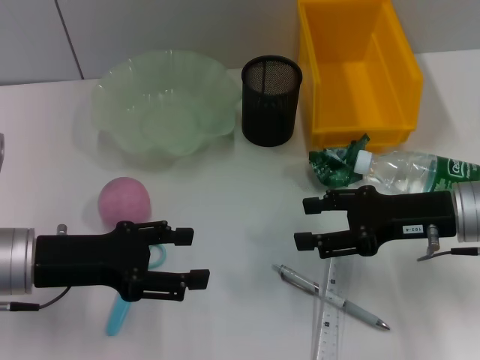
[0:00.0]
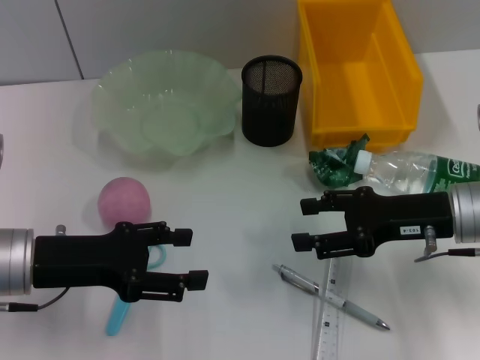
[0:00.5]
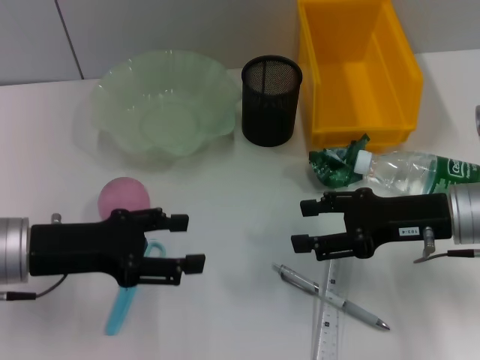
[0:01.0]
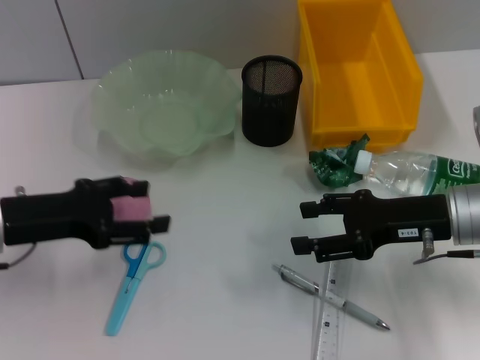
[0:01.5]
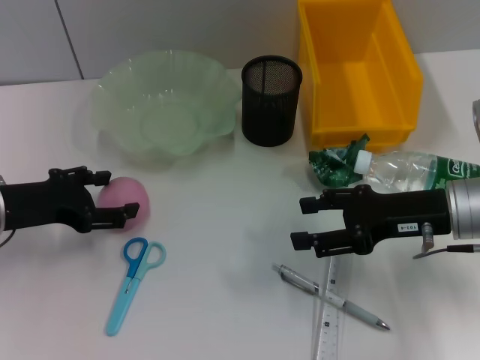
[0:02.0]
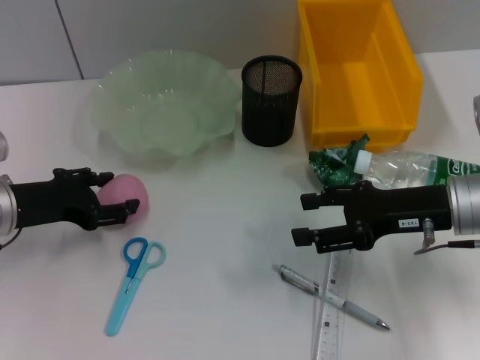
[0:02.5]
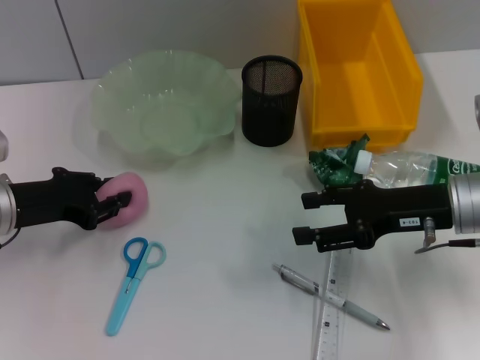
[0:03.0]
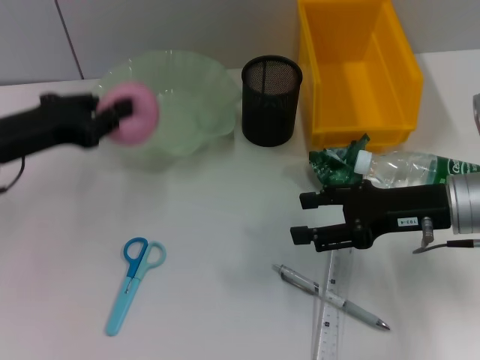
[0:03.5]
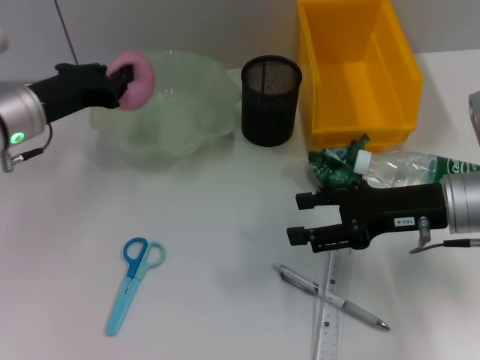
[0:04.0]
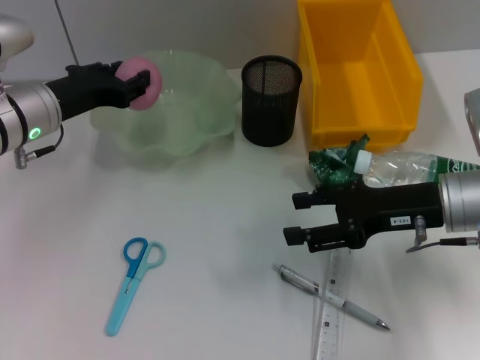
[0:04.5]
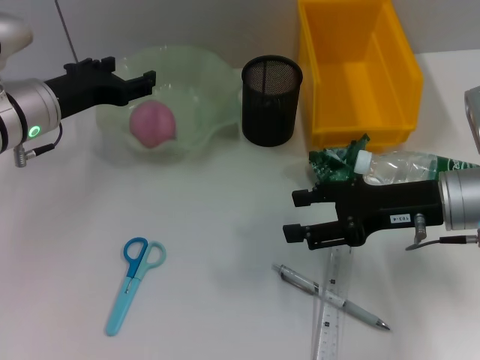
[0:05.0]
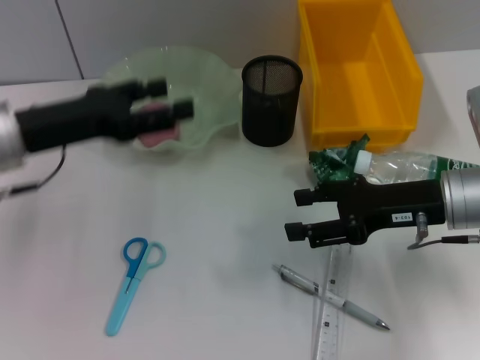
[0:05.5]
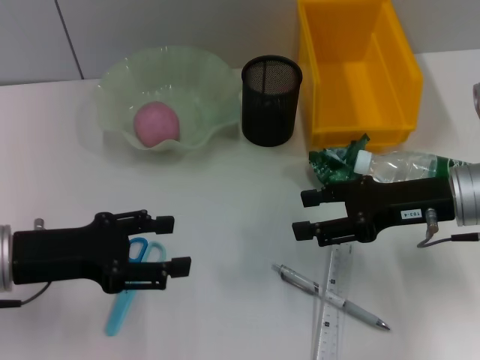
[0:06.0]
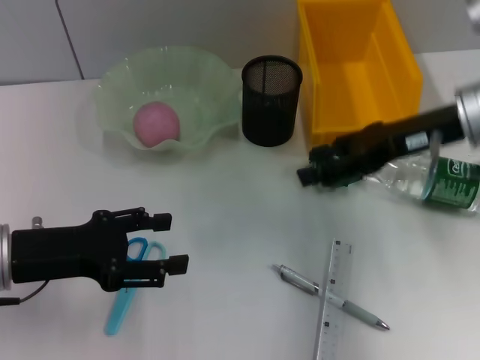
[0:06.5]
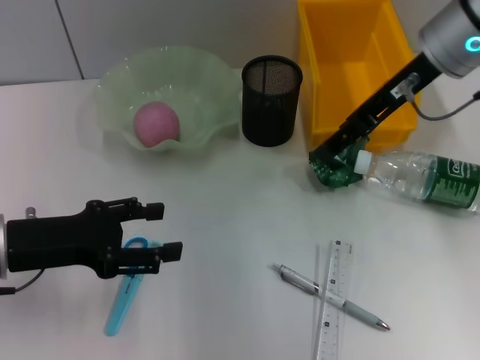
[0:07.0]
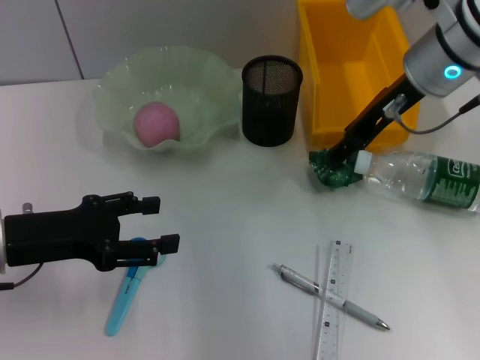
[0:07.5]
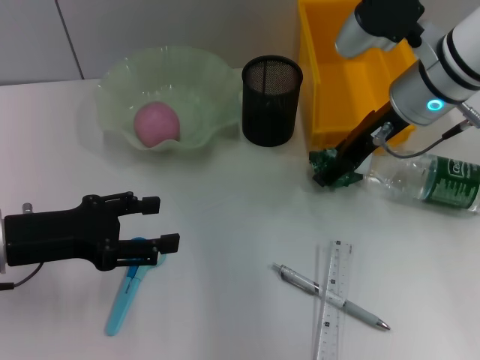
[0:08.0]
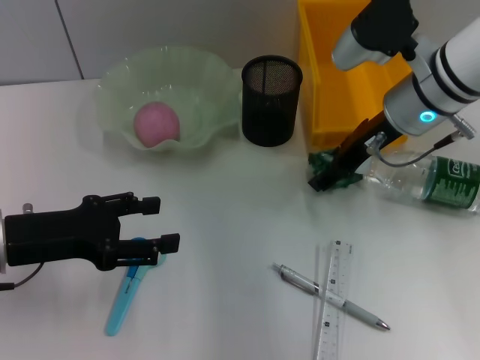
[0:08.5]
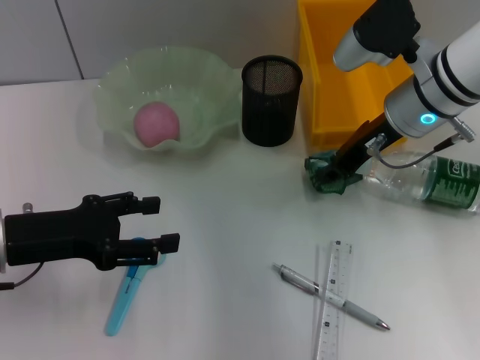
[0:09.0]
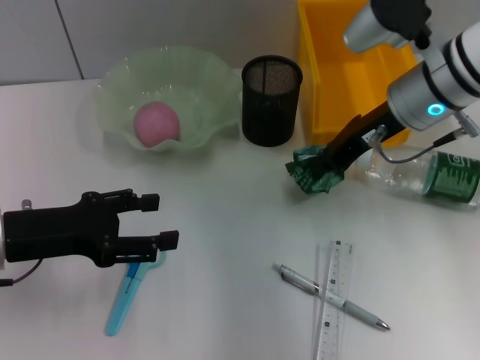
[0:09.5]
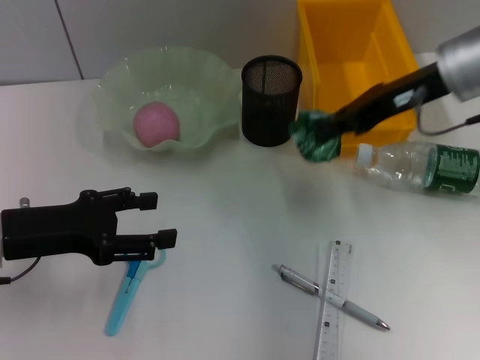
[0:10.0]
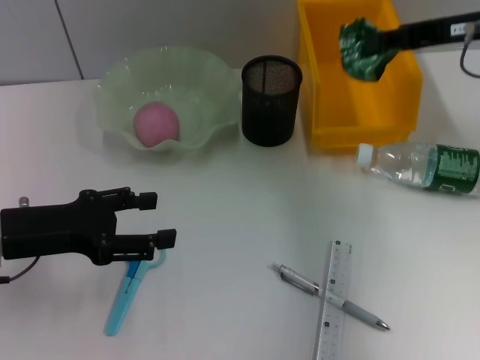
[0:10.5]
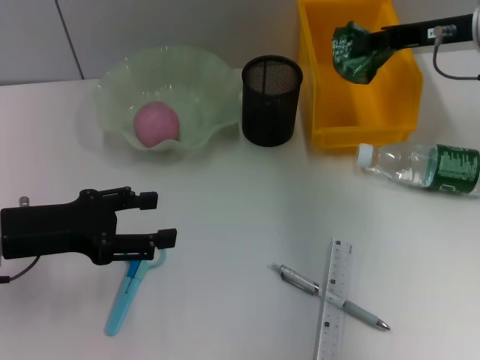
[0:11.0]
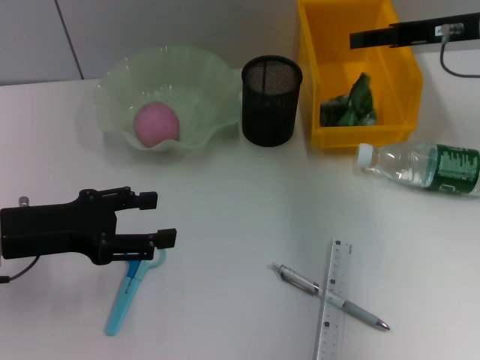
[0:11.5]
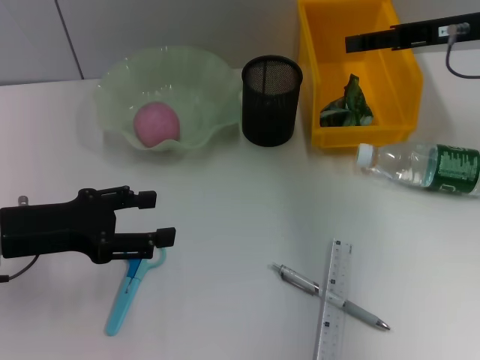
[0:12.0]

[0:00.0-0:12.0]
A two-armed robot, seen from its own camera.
Step, 0:00.0 to 0:02.5: Grab the peach with the left hand.
Step, 0:03.0 to 0:04.5: Place the peach into the fruit bowl with the left hand.
Step, 0:05.0 to 0:09.0: Grab the plastic with the right hand.
Step, 0:09.5 to 0:11.5: Place the plastic into the trash can with the right hand.
0:00.0 to 0:02.0: The left gripper shifts by some 5 cm.
0:02.0 to 0:04.0: The left gripper goes some 5 cm forward, and closes its fingers.
0:04.0 to 0:06.0: The left gripper moves backward, about 10 cm, and opens.
0:06.0 to 0:08.0: The right gripper heads forward, upward and to the left, covering approximately 15 cm.
0:08.0 to 0:10.0: The right gripper ends up roughly 5 cm from where it was, and closes up.
0:10.0 to 0:12.0: The right gripper heads to the right, covering approximately 5 cm, and opens its fingers.

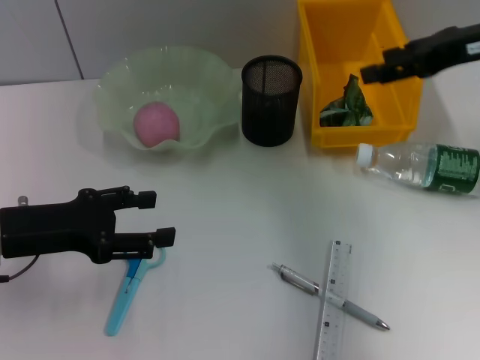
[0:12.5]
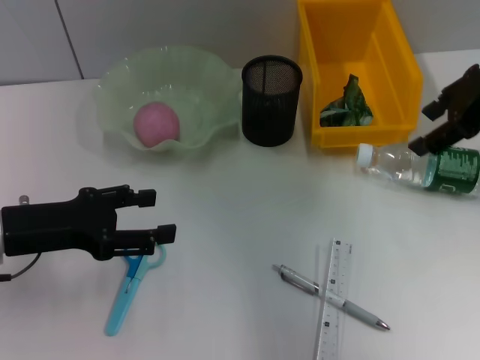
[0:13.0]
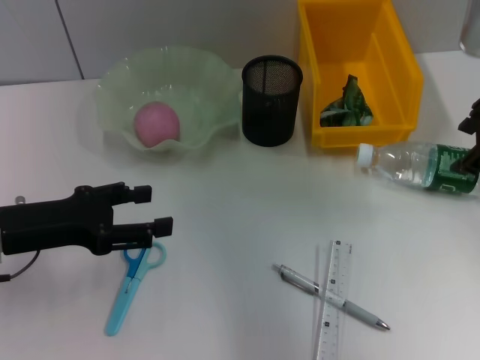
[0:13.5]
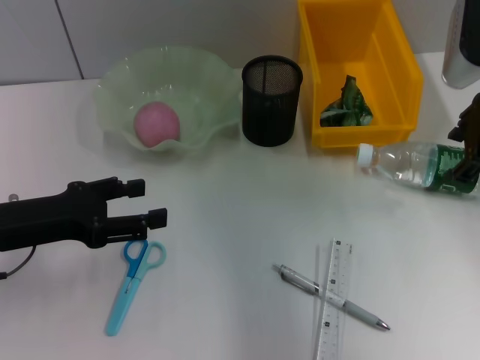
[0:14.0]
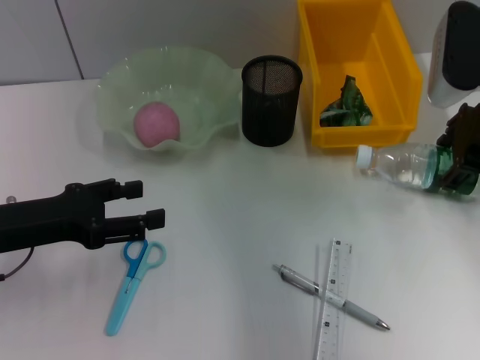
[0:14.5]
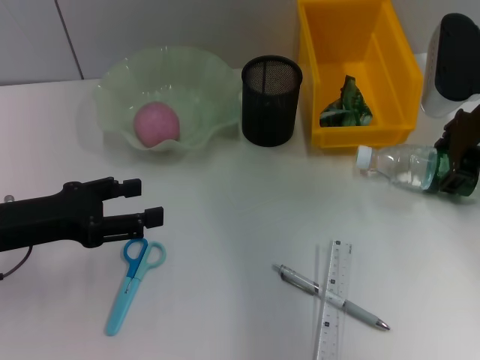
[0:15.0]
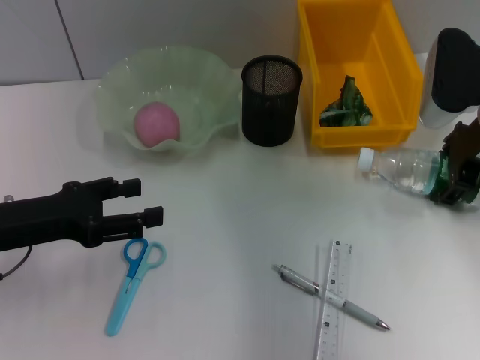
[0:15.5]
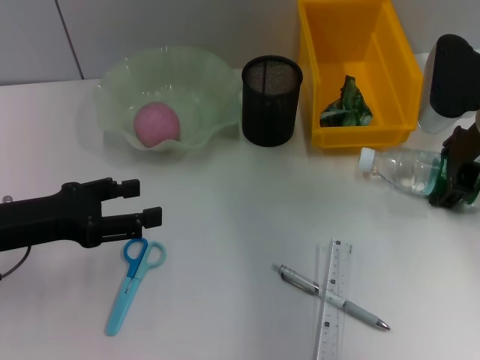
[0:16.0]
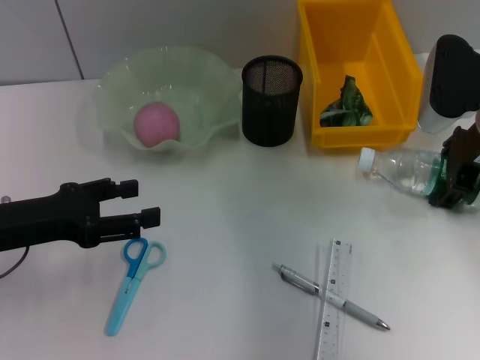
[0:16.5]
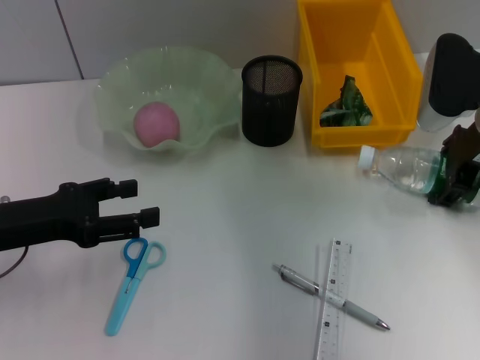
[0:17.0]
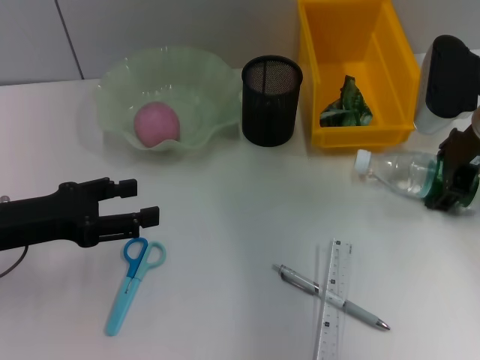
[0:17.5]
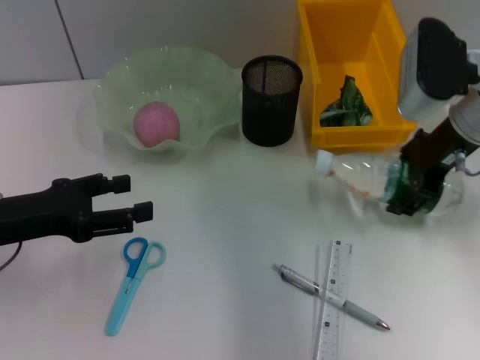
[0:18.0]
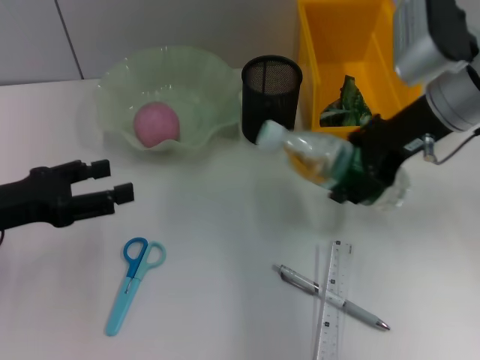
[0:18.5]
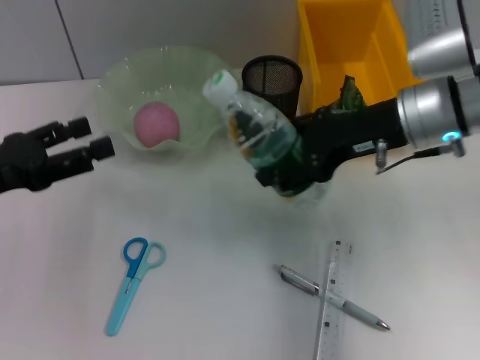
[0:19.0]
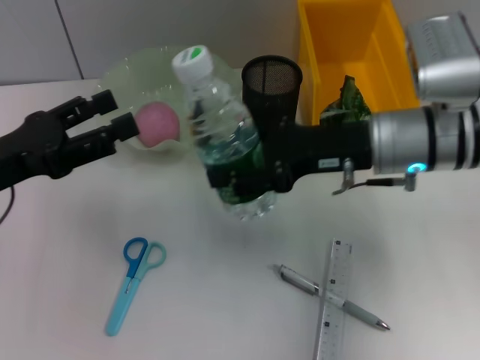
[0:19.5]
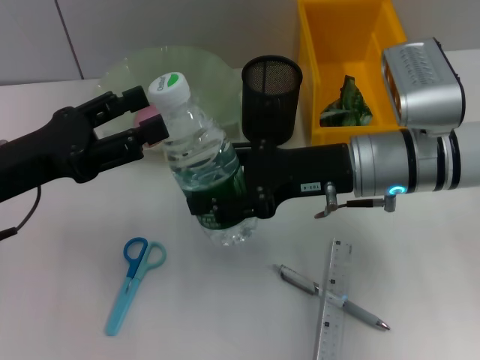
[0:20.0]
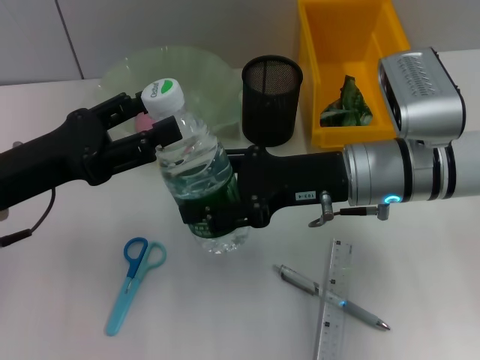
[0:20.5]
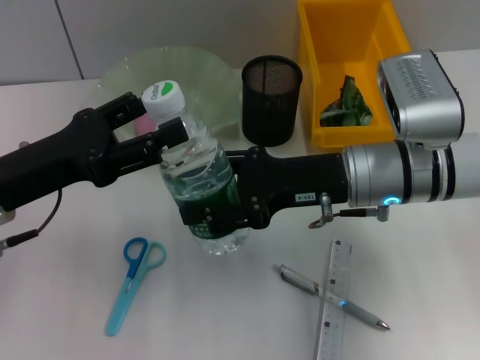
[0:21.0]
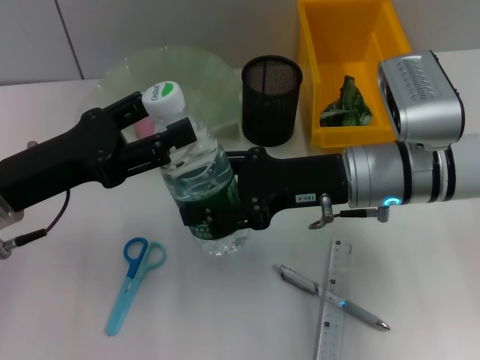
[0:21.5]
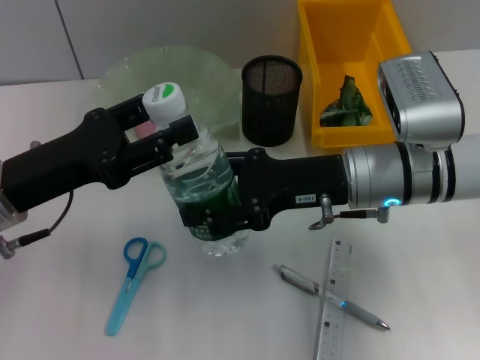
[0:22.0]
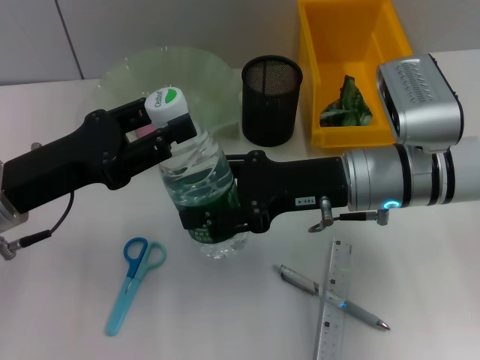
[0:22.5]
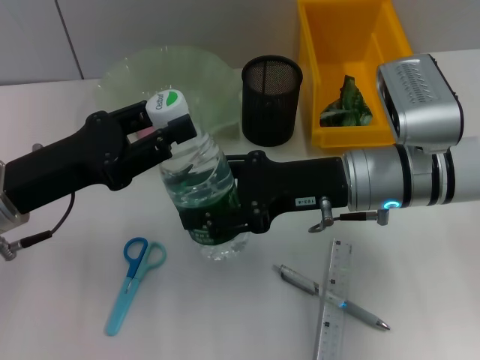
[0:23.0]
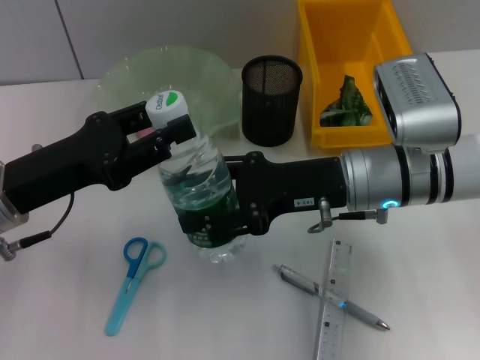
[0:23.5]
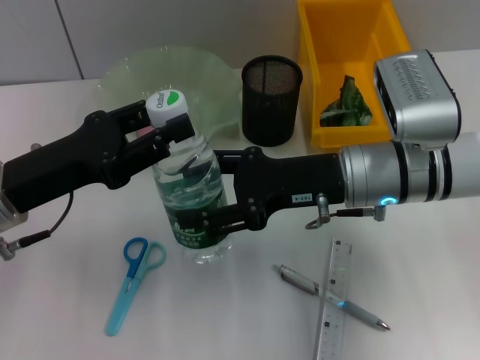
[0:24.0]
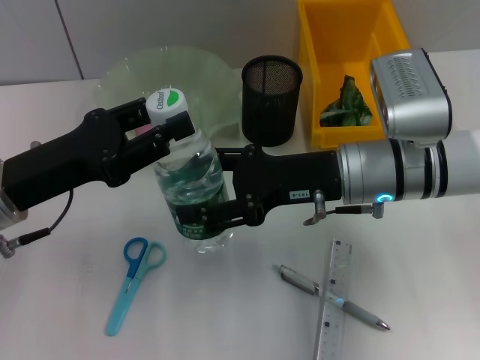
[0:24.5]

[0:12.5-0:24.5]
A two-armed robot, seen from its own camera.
Step, 0:12.5 to 0:17.5: Grab the water bottle with the right hand.
0:12.5 to 0:14.5: The right gripper travels downward by approximately 5 cm.
0:14.5 to 0:16.5: The grippers make only small movements.
0:16.5 to 0:18.5: The right gripper heads to the left, covering about 5 cm.
0:18.5 to 0:20.5: The left gripper shifts by some 5 cm. The right gripper travels downward, to the left and backward by roughly 10 cm.
0:20.5 to 0:22.5: The left gripper closes.
0:22.5 to 0:24.5: The two grippers keep their place.

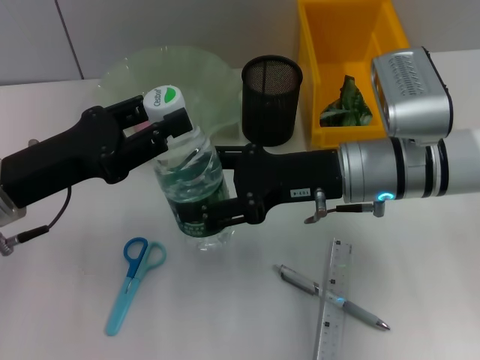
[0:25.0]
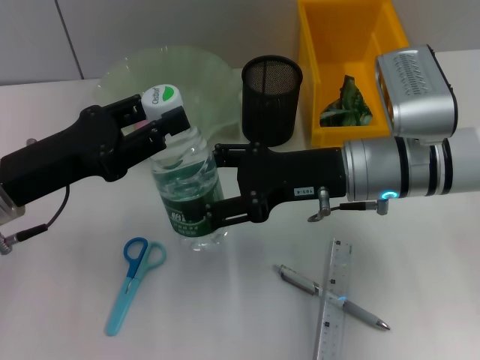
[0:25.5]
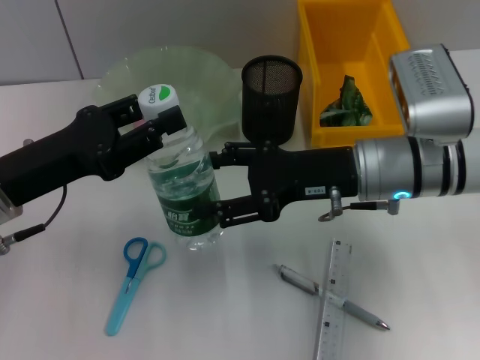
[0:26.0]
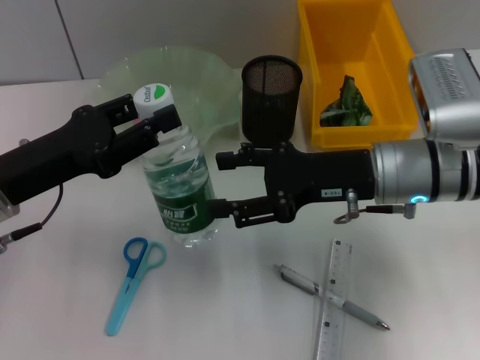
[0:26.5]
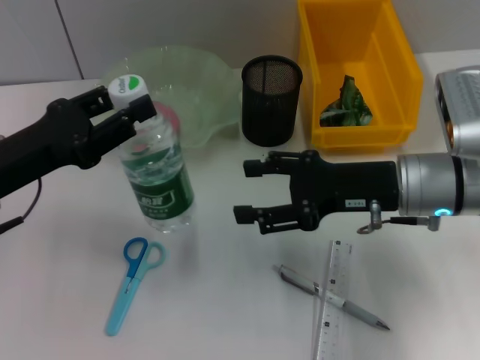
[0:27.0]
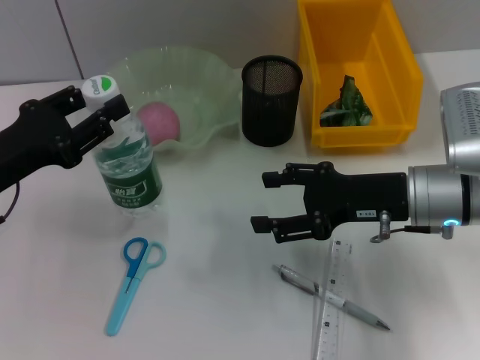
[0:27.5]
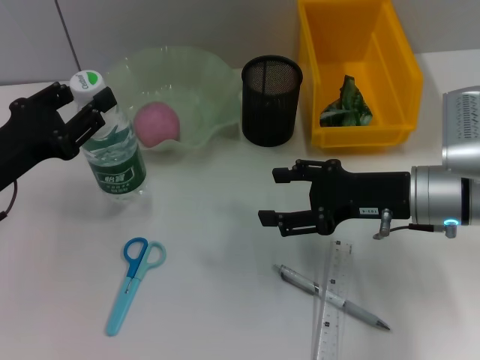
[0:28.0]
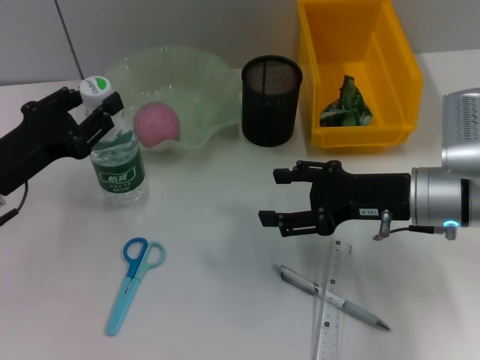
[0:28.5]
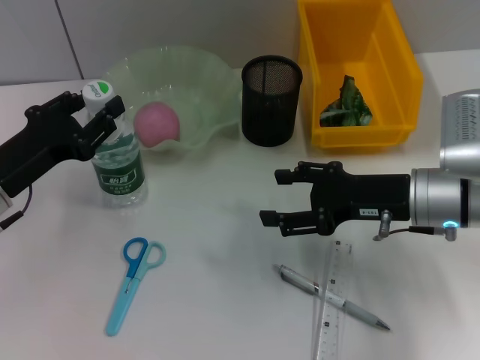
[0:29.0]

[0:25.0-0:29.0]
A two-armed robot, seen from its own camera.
0:25.0 to 0:27.0: The right gripper travels to the right by roughly 5 cm.
